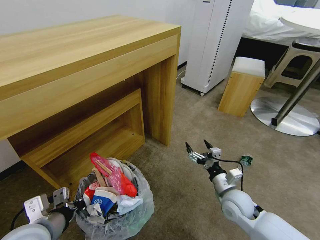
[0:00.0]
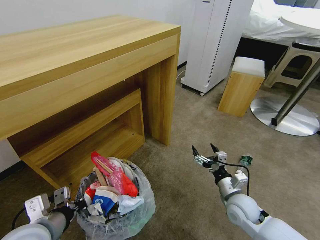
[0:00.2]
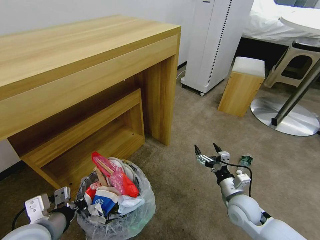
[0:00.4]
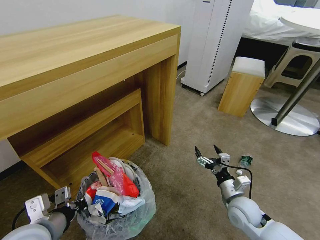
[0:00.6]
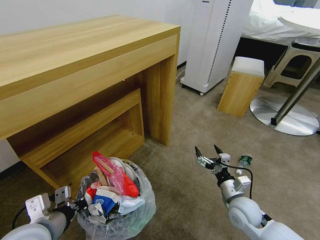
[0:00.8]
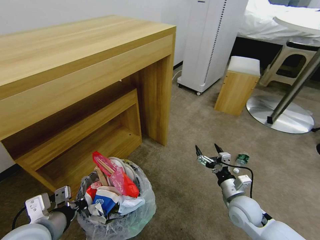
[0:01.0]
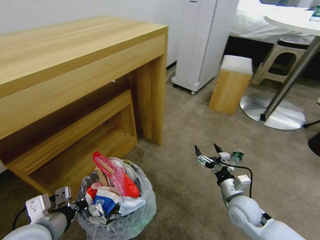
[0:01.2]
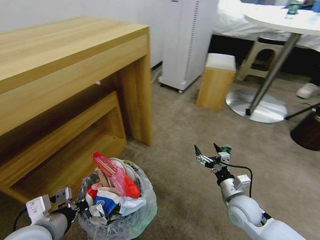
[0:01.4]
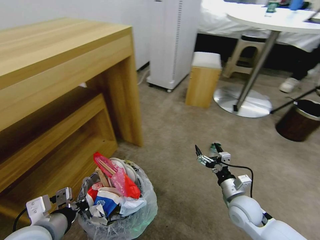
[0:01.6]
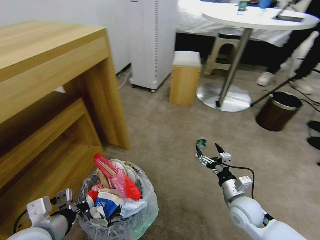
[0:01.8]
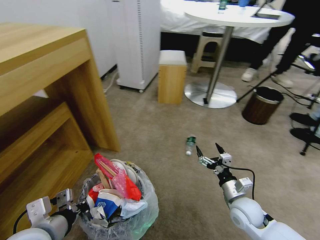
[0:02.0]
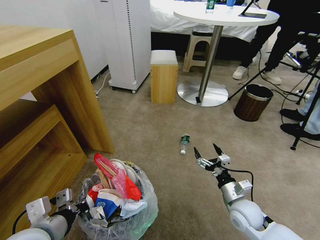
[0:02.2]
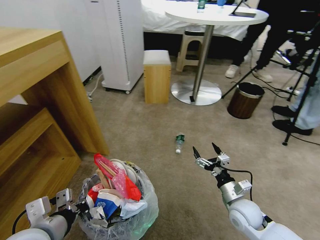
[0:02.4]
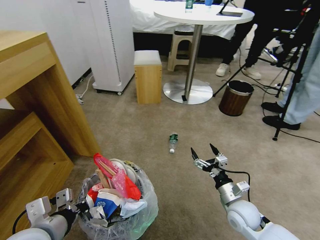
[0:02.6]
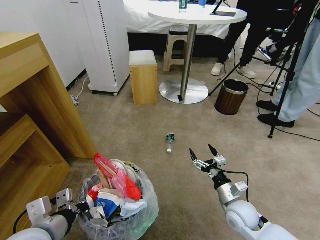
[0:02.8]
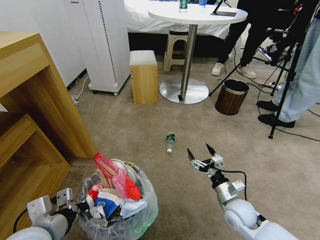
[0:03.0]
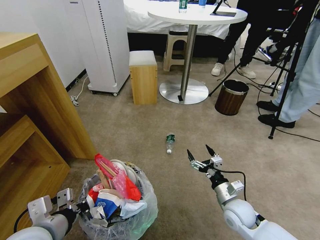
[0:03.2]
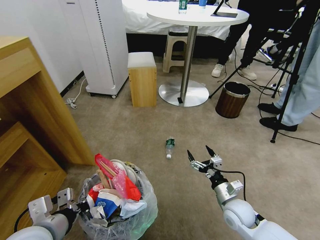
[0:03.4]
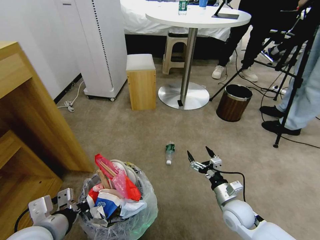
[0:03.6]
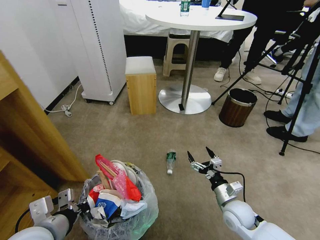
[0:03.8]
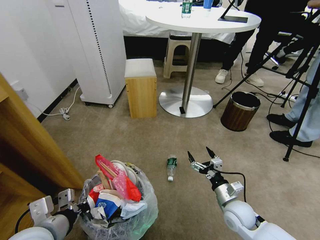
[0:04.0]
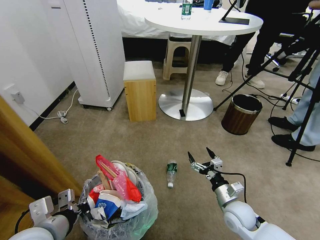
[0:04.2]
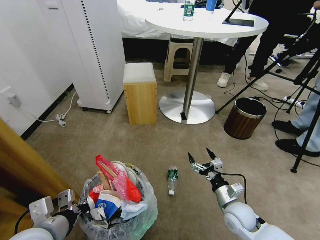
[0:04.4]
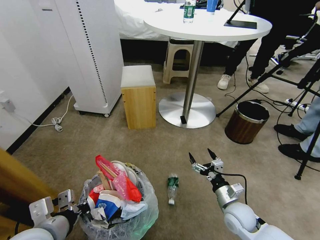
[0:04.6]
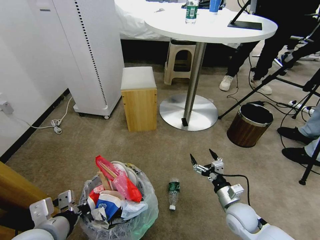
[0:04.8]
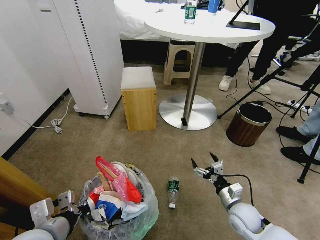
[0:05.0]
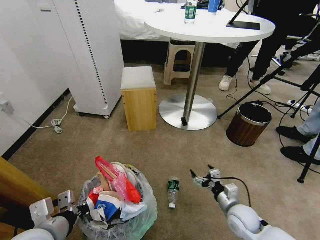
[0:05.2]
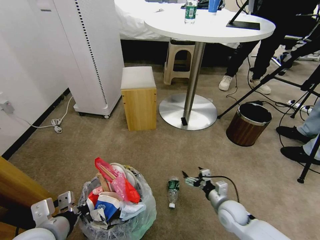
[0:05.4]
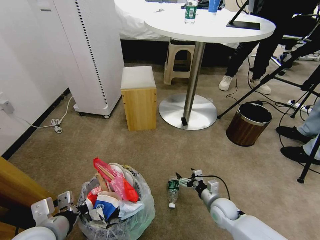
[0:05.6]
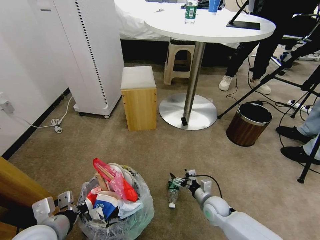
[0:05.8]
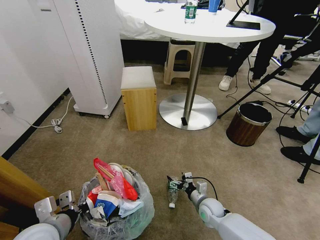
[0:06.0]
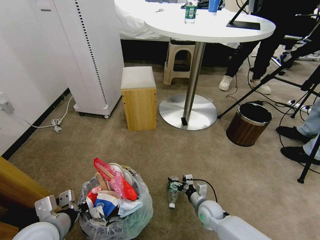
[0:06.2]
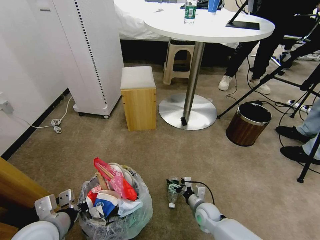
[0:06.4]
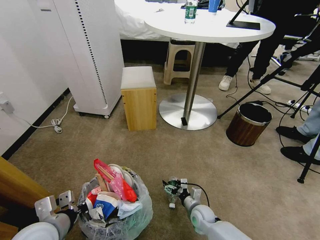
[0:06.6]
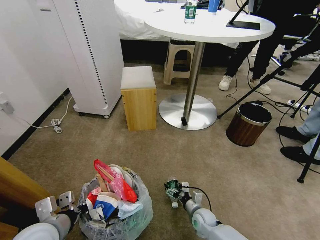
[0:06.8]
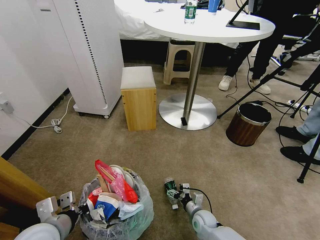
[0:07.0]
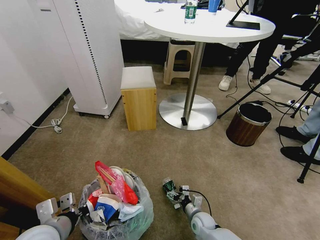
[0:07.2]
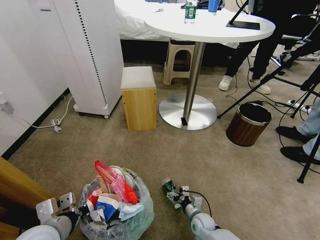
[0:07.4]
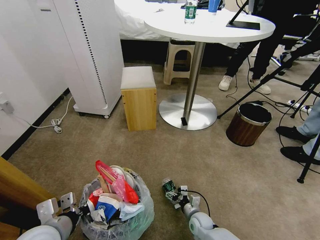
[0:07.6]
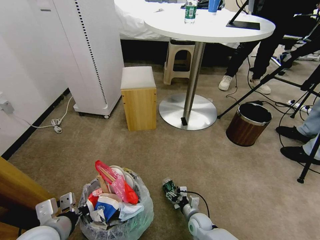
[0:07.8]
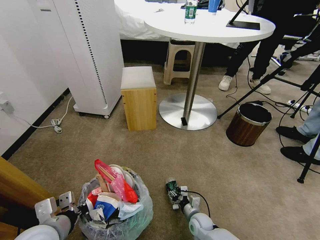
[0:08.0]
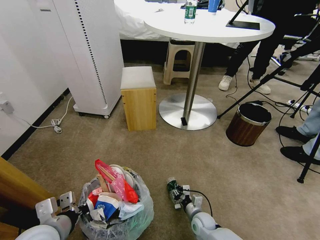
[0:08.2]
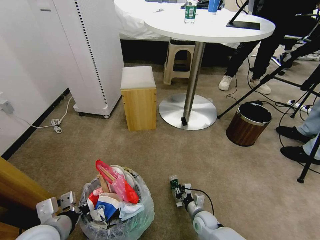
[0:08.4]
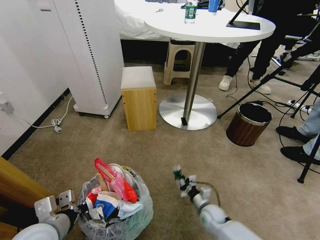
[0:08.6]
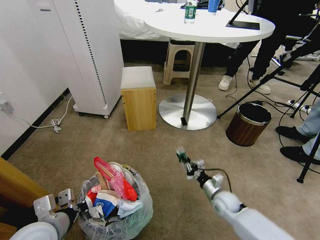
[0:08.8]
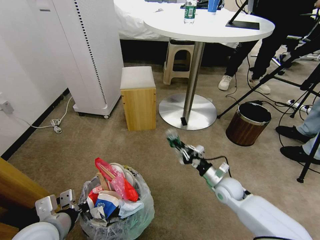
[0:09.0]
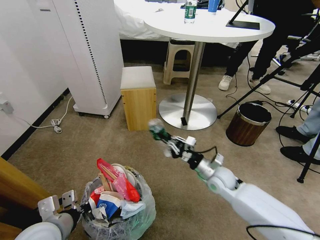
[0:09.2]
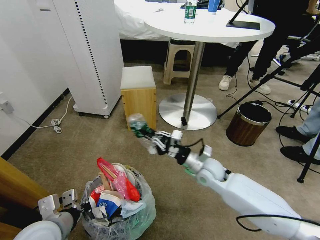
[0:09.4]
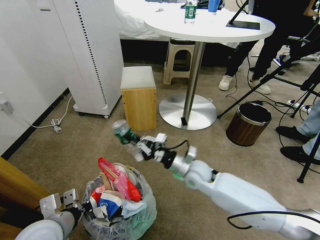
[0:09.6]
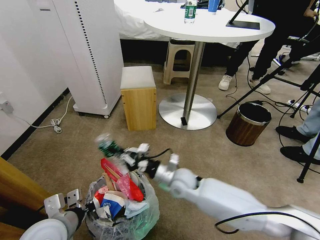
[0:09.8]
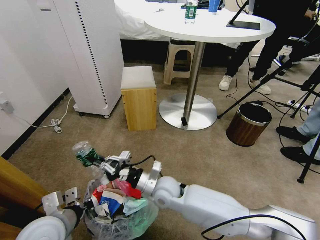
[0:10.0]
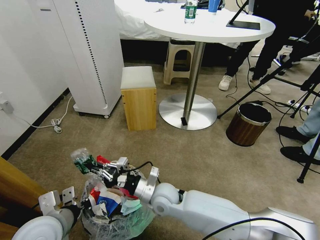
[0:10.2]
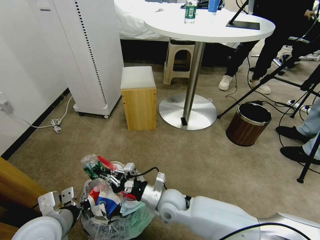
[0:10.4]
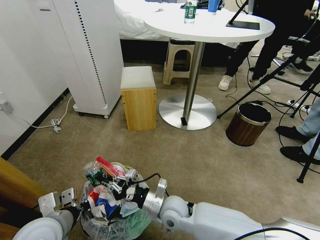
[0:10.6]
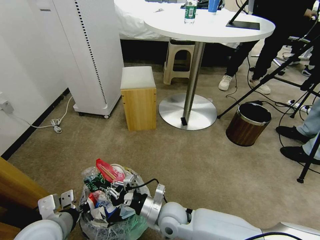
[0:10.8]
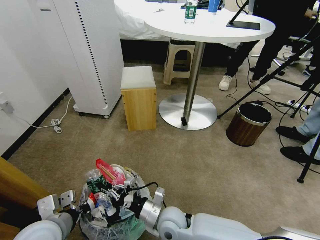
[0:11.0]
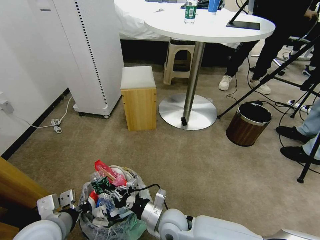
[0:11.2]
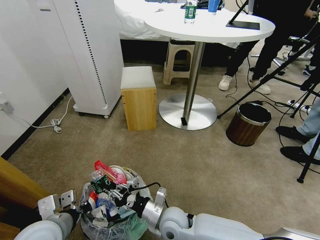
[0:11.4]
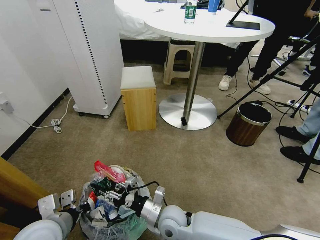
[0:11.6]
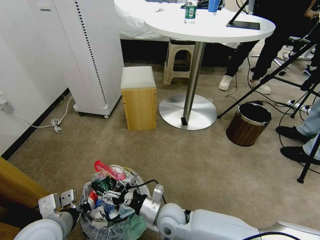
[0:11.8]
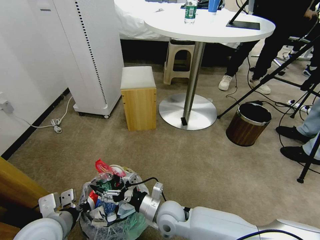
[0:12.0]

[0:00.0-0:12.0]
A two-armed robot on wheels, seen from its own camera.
Task of the whole recording: Pick up the trash bin and place the garbage on the floor into it.
0:04.4 to 0:06.0: The right gripper heads downward, to the left and forward, covering about 10 cm.
0:06.0 to 0:07.6: The right gripper heads downward, covering roughly 5 cm.
0:07.6 to 0:09.0: The right gripper travels upward, to the right and forward by about 20 cm, and closes its fingers.
0:09.0 to 0:10.4: The right gripper is displaced to the left by roughly 25 cm.
0:10.4 to 0:12.0: The right gripper opens.

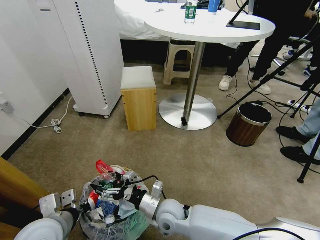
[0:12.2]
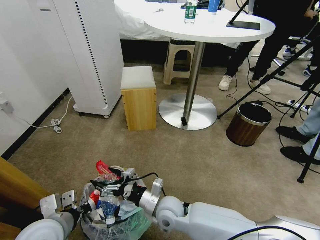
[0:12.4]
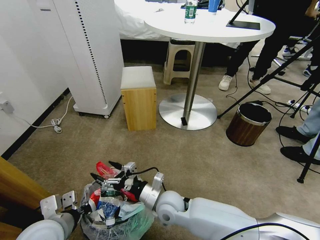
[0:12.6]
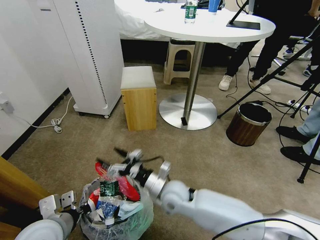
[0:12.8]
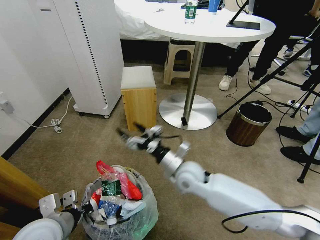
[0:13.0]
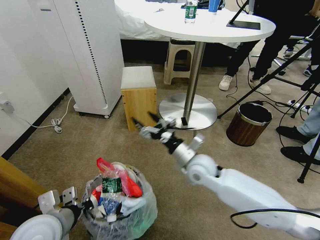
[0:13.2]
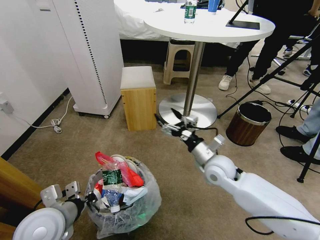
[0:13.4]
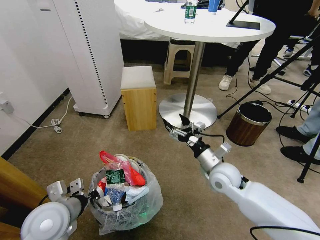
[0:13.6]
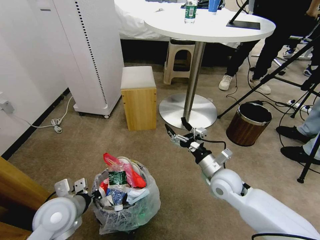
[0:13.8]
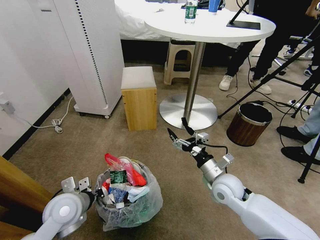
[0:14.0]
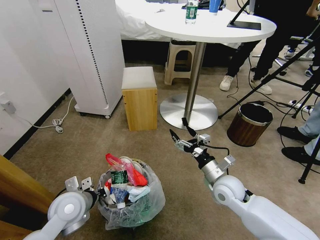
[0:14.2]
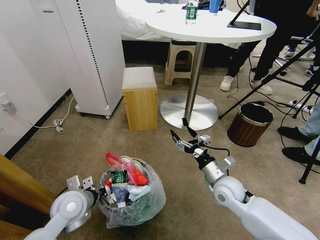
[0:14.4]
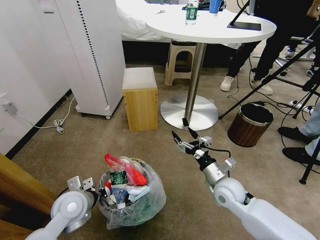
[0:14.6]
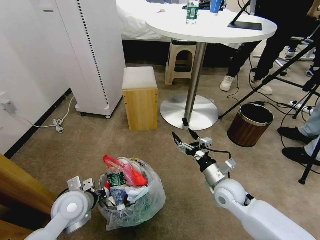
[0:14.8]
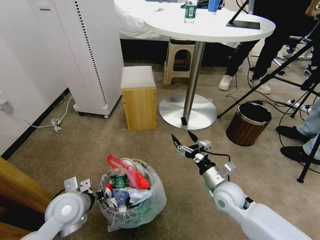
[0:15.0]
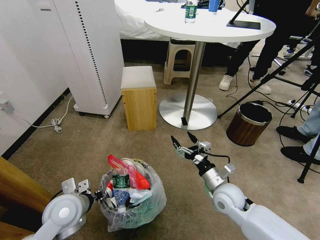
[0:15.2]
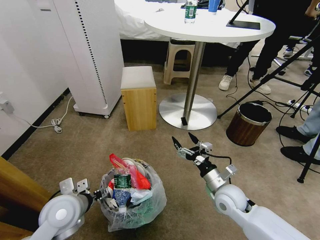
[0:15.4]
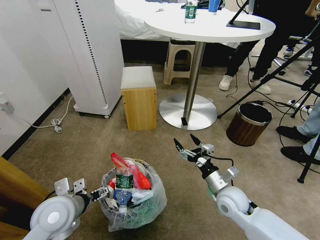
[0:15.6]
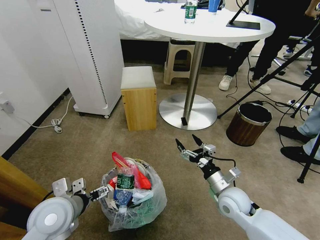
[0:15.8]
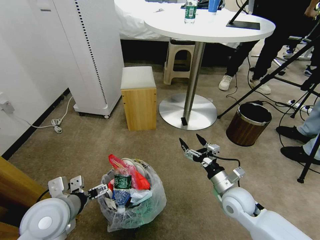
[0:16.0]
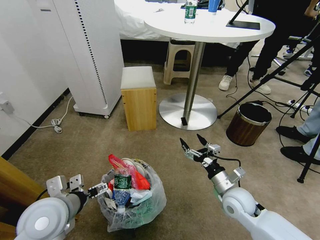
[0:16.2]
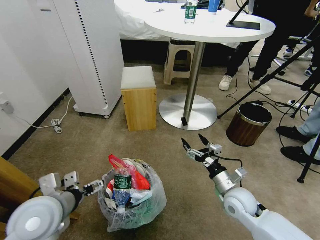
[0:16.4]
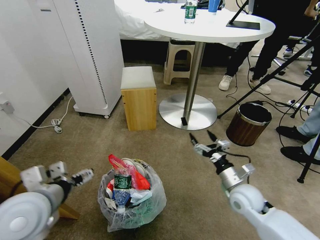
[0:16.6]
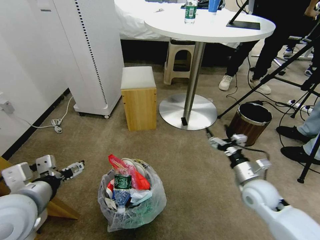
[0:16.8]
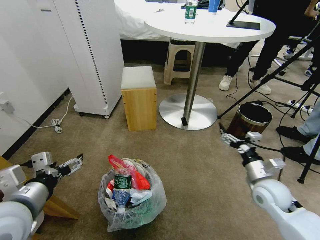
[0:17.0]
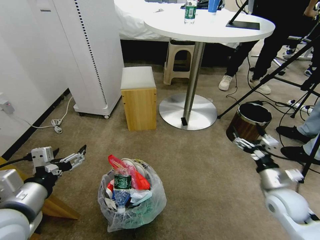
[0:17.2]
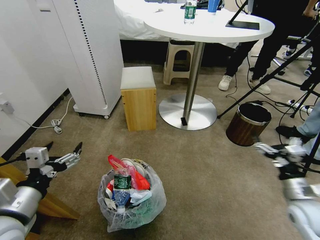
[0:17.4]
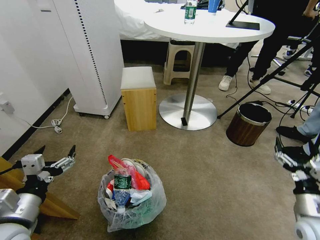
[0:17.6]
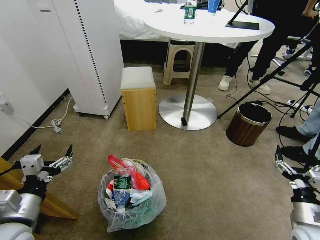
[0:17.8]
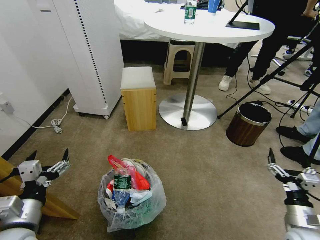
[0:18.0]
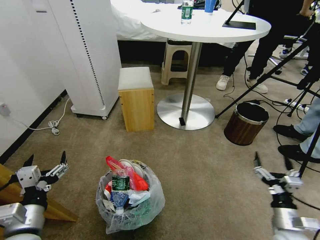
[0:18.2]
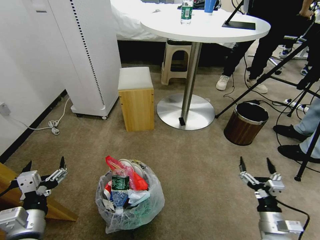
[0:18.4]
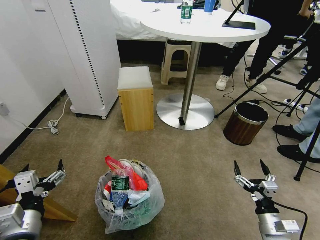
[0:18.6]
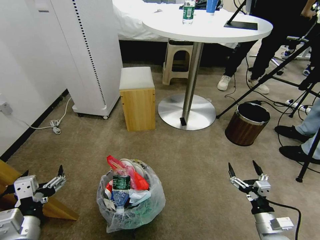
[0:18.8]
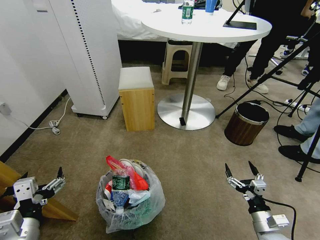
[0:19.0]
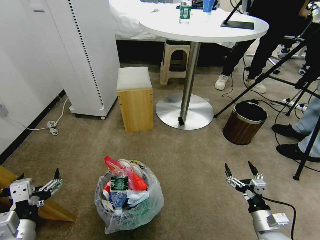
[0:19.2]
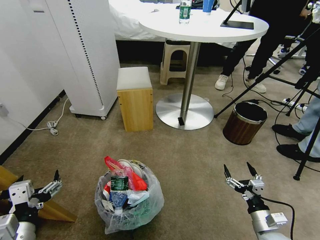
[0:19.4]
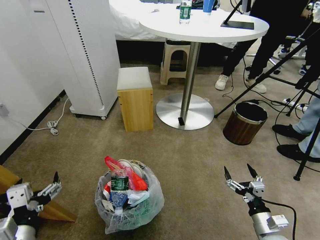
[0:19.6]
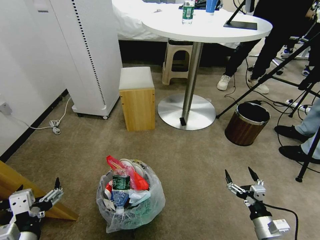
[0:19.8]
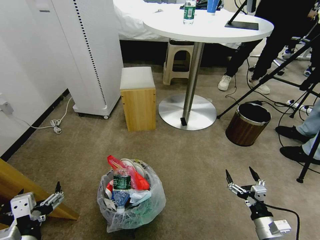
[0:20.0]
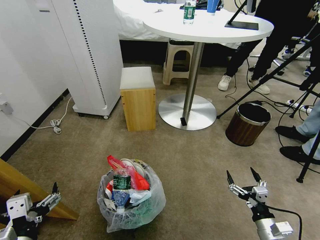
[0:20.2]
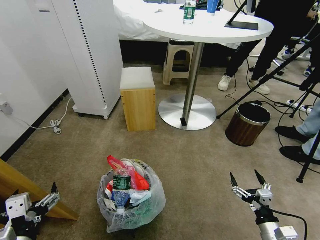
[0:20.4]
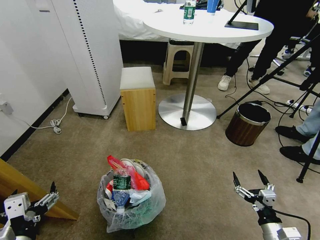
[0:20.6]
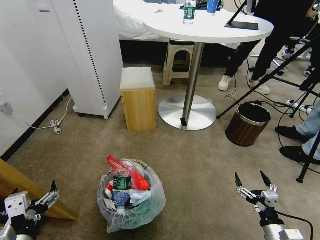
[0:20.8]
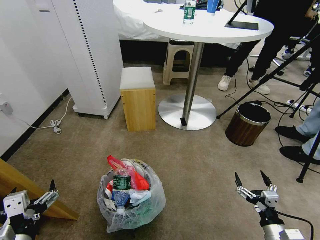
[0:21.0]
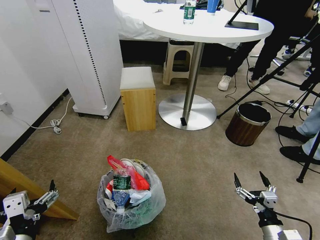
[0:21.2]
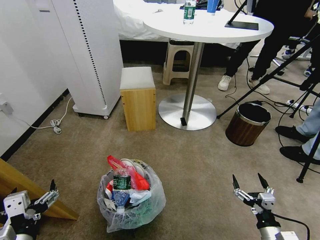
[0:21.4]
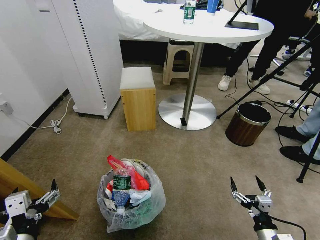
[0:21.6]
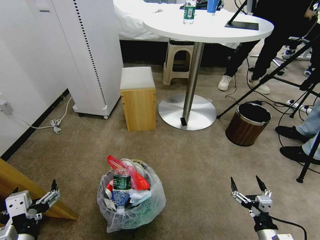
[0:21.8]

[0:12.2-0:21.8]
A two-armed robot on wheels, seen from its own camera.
Task of the whole recording: Pick up the trash bin and place the garbage on the floor into it.
0:12.2 to 0:13.8: The left gripper heads forward, covering some 5 cm. The right gripper goes some 20 cm to the right and upward.
0:13.8 to 0:15.4: The right gripper ends up some 5 cm from where it was; the left gripper opens up.
0:15.4 to 0:17.0: The right gripper moves to the right, some 10 cm. The left gripper heads upward and backward, covering some 15 cm.
0:17.0 to 0:18.6: The left gripper heads downward, covering roughly 10 cm. The right gripper travels backward and downward by roughly 15 cm.
0:18.6 to 0:20.2: The left gripper travels backward by about 5 cm.
0:20.2 to 0:21.8: There are only small adjustments of the grippers.

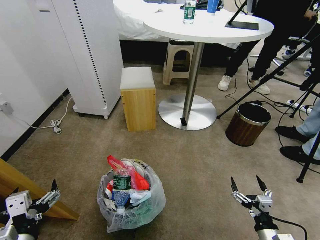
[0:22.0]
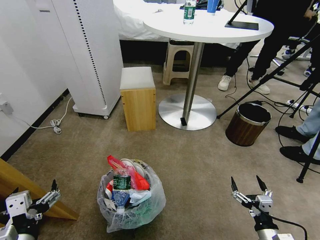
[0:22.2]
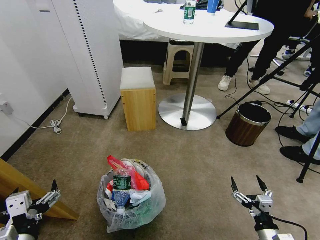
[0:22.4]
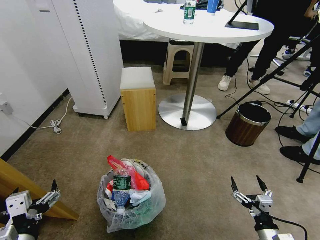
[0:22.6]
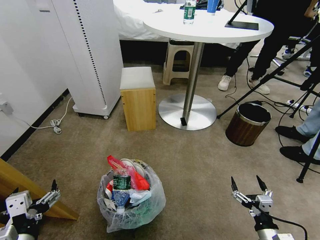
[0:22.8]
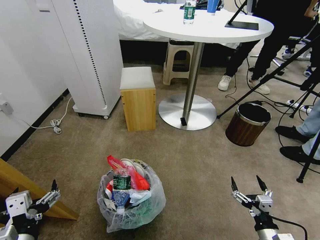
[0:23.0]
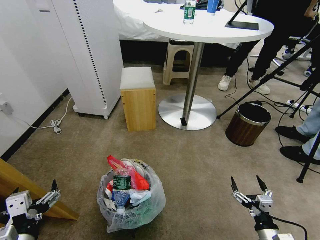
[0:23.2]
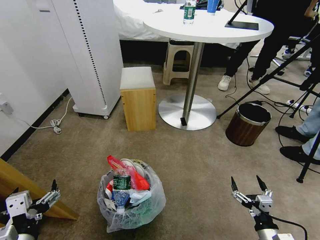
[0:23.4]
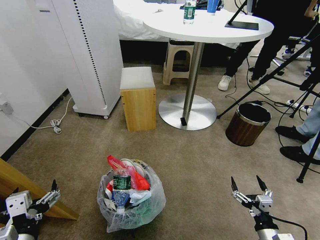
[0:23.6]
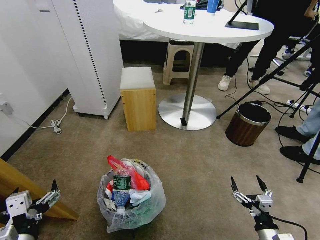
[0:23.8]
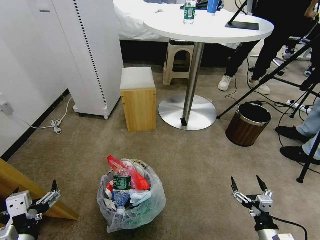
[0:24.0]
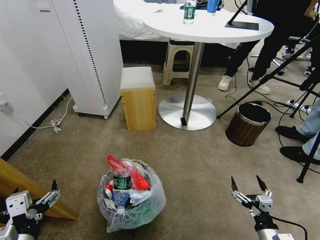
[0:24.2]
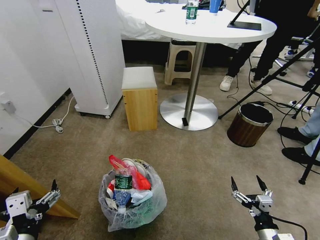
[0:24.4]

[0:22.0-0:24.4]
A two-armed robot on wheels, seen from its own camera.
Task of the whole recording: Pick up the trash bin and place the garbage on the floor into it.
0:22.0 to 0:24.4: Both grippers stay about where they are.
